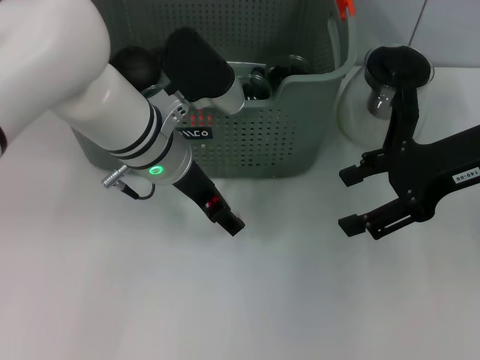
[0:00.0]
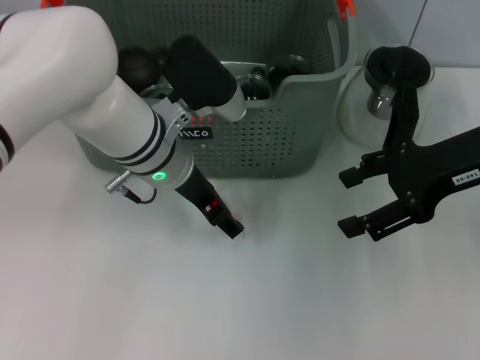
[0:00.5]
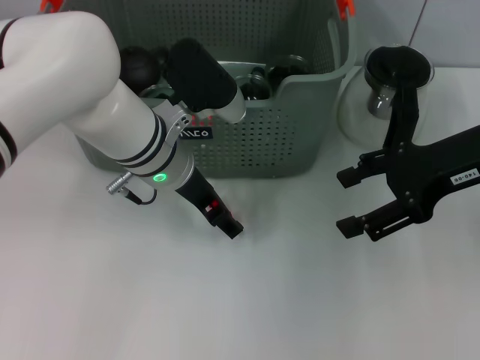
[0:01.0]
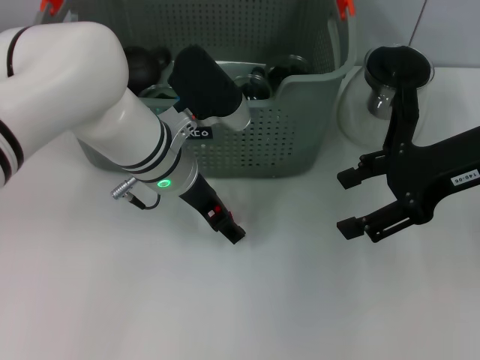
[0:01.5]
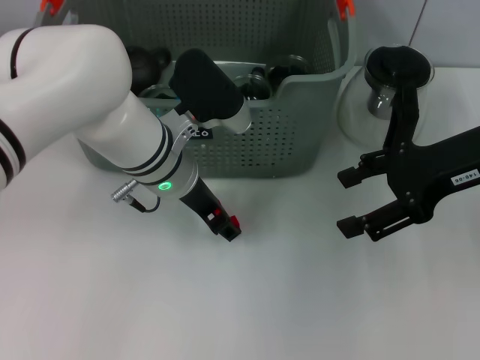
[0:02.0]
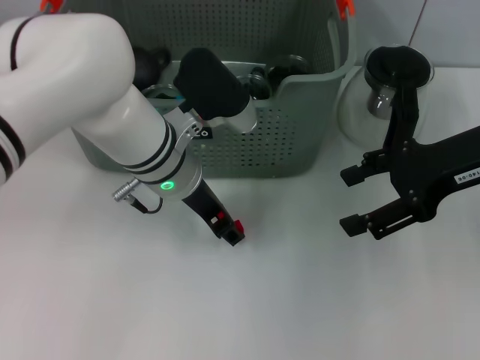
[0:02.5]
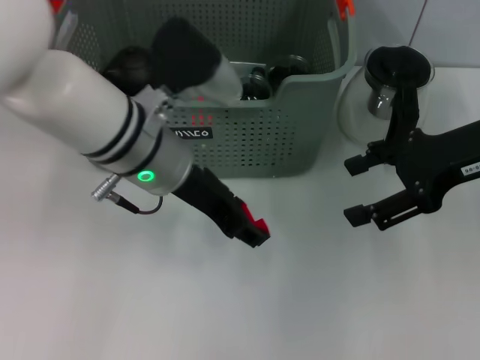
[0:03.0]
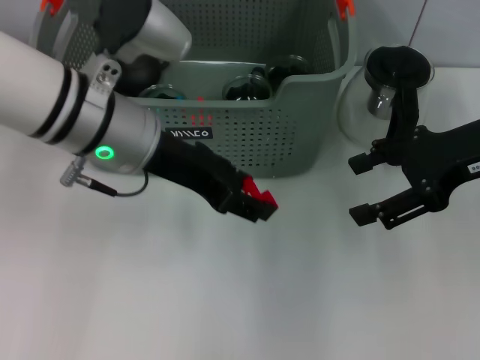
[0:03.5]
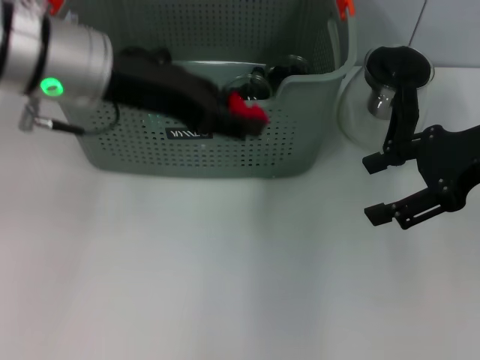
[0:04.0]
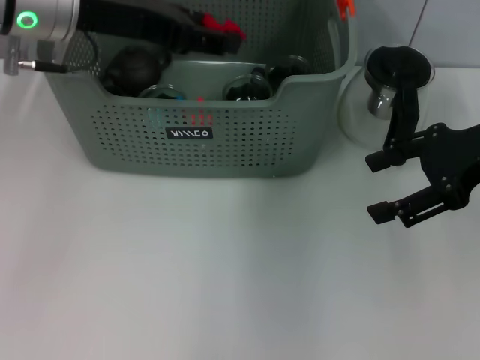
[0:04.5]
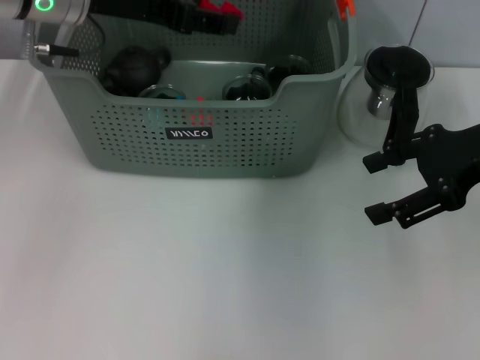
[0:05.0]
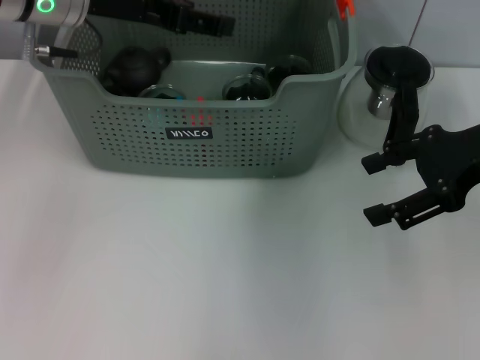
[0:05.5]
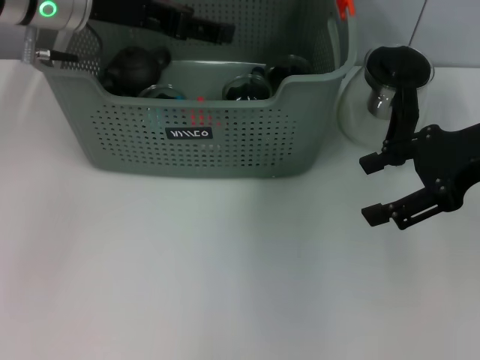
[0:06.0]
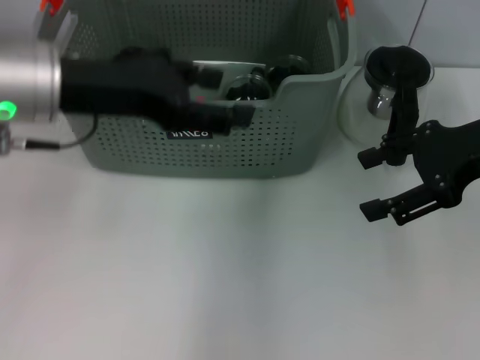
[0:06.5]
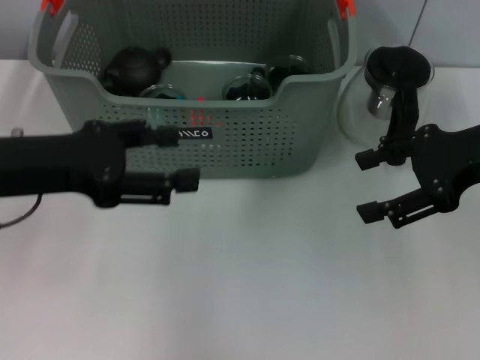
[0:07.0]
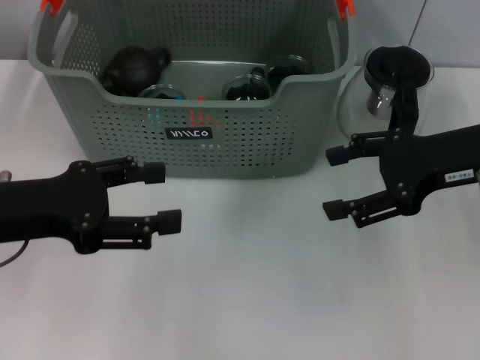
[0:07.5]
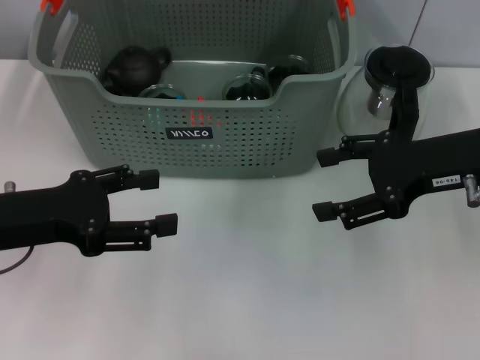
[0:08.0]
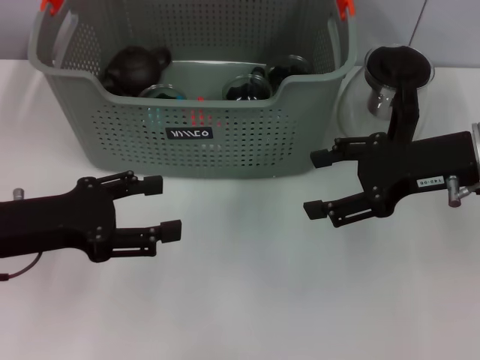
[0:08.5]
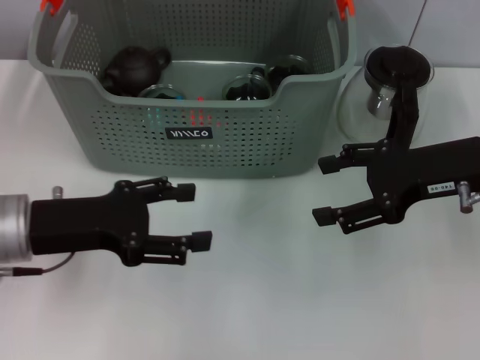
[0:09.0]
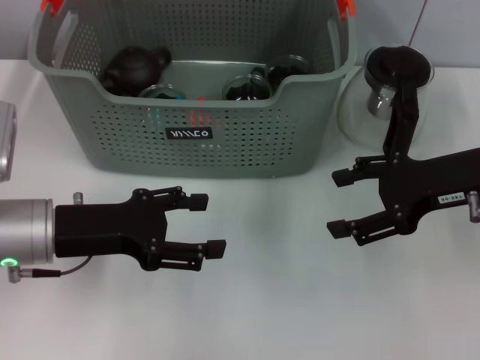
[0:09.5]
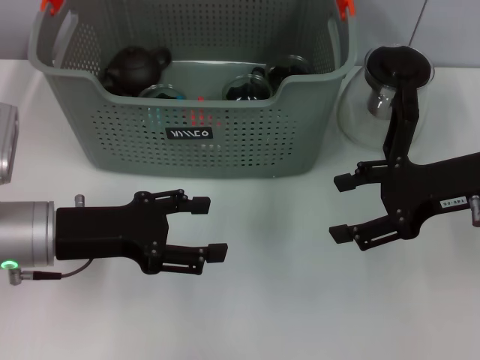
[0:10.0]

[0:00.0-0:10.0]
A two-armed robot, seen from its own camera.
Task of the whole recording: pick up the teacup on the table and place it into the storage bin, pick up the block on the table and place it into the storage bin.
Step, 0:00.0 to 0:02.0: Grasp the red block with left gripper.
Step, 0:02.5 to 0:05.5: Place the red block in the storage box with left gripper.
0:00.0 to 0:02.0: The grippers stay close to where they were, moving slightly.
0:02.0 to 0:04.0: The left gripper shifts approximately 15 cm upward and to the left.
0:04.0 to 0:06.0: The left gripper travels forward by about 5 cm.
0:06.0 to 0:08.0: The left gripper shifts about 20 cm backward, downward and to the left.
0:08.0 to 0:10.0: The left gripper changes place by about 5 cm.

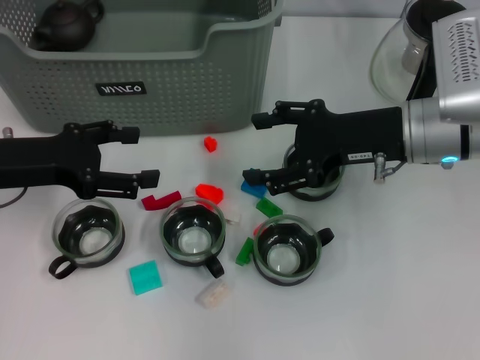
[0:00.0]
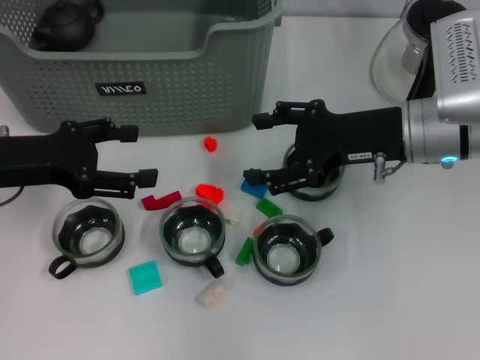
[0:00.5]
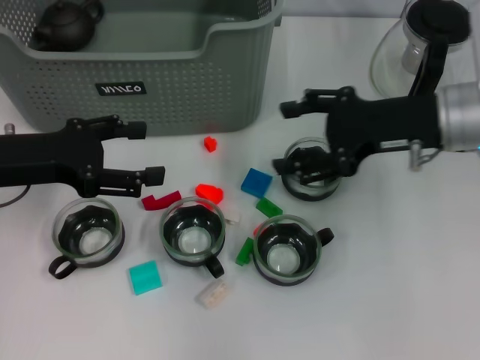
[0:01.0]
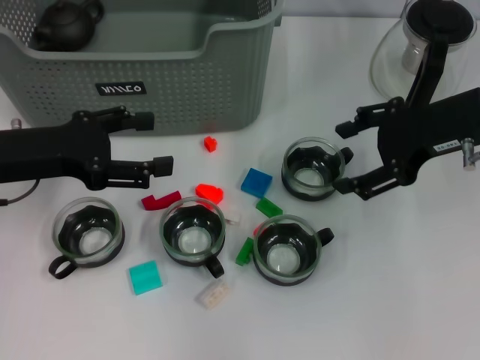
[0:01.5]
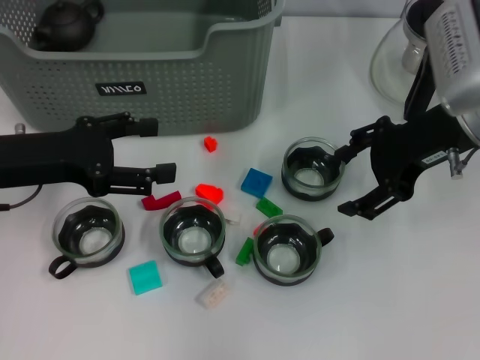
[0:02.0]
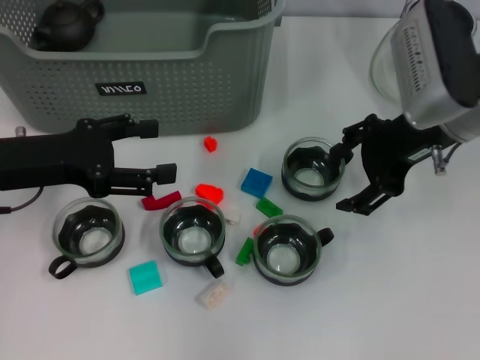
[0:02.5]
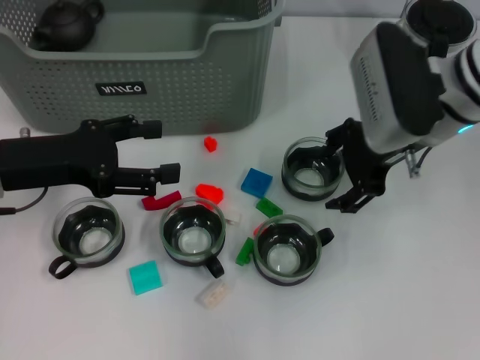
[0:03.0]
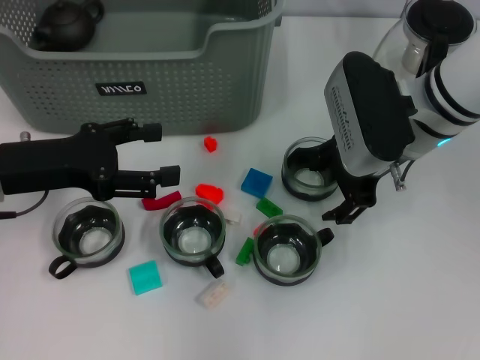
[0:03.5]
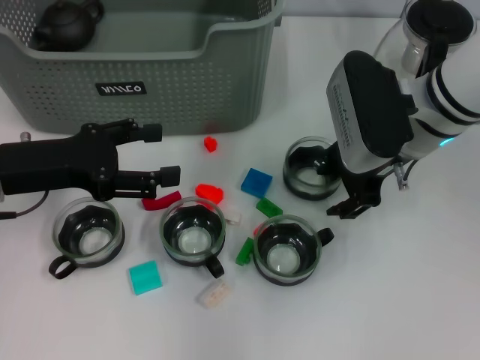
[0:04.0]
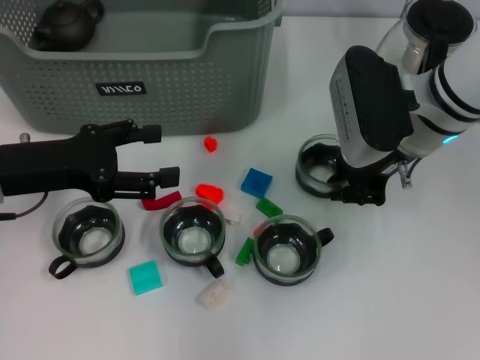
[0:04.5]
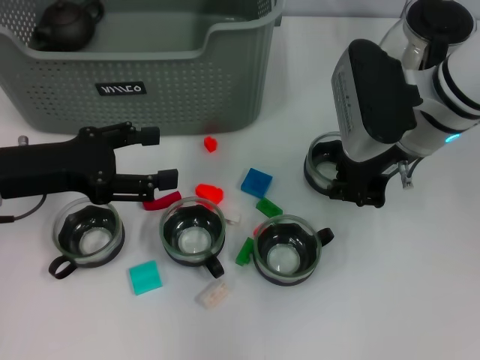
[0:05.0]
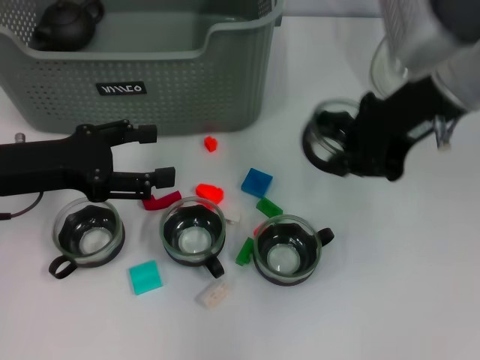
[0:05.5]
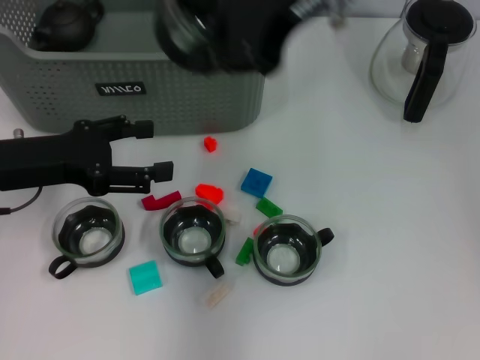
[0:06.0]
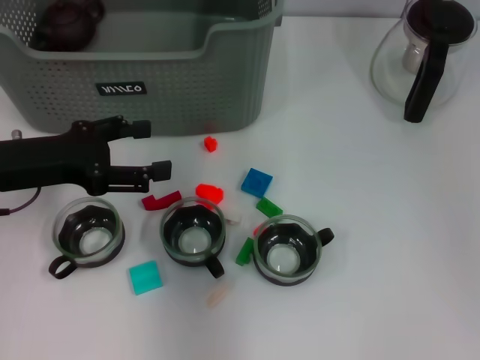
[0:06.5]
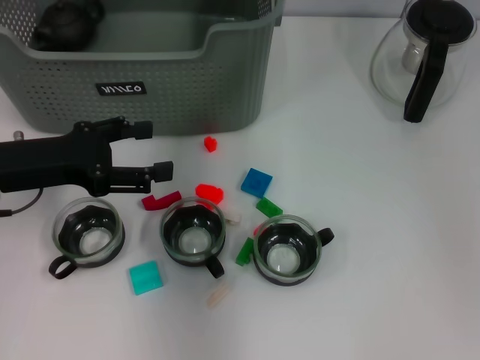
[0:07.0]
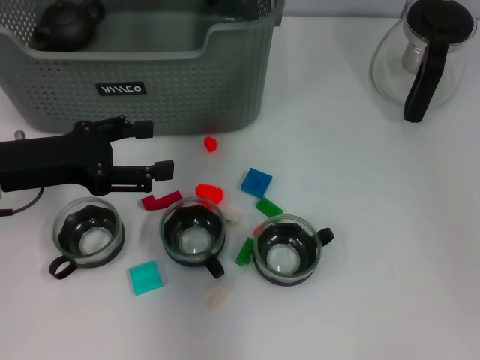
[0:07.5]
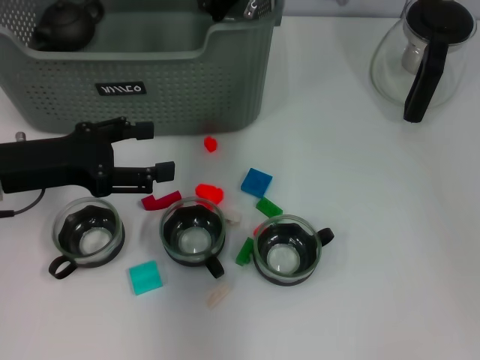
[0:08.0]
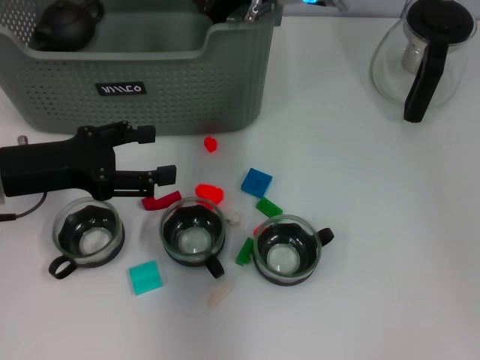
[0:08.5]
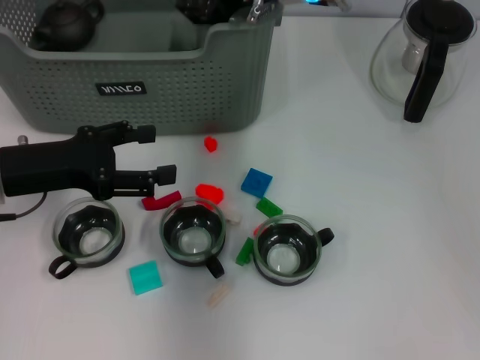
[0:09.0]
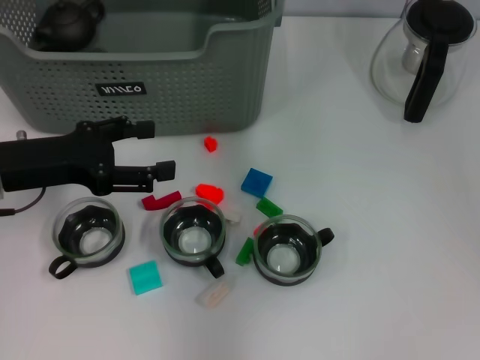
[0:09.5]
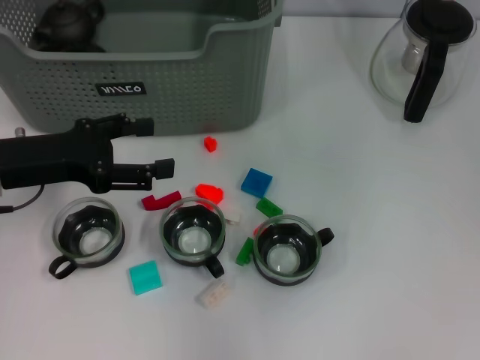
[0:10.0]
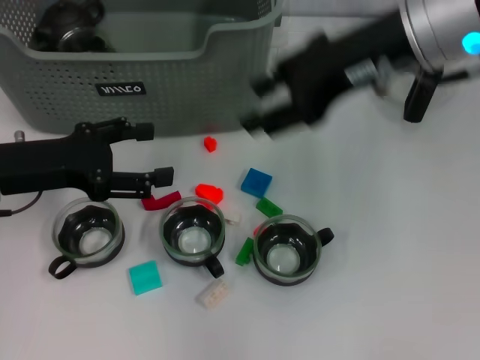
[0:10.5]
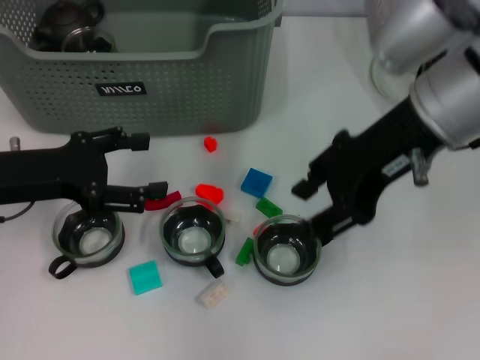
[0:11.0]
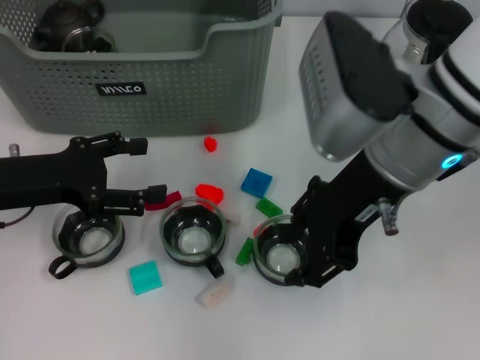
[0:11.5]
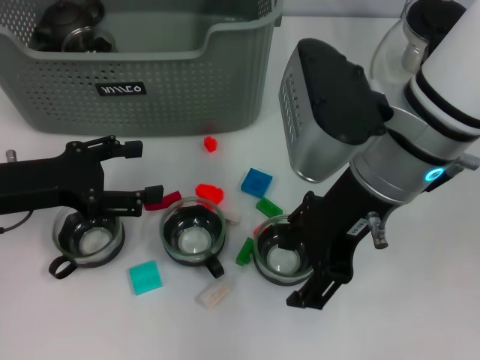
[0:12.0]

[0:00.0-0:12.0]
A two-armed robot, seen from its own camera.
Task of the whole recording: pick up the teacup on the table and place it into the storage bin, pick up the block on the table and place it into the storage bin.
Step, 0:00.0 to 0:04.5: Grasp the cup with right gripper.
Step, 0:05.0 to 0:09.5: Place the cup in the storage box with right gripper.
0:00.0 to 0:02.0: The right gripper is displaced upward by about 5 cm.
0:02.0 to 0:04.0: The right gripper shifts about 5 cm to the left.
0:04.0 to 0:06.0: The right gripper heads upward, covering roughly 20 cm, and closes up.
0:06.0 to 0:08.0: The right gripper heads downward and forward, covering some 15 cm.
0:08.0 to 0:10.0: The right gripper heads upward, covering approximately 10 cm, and opens.
0:10.0 to 0:12.0: The right gripper heads backward and downward, covering some 15 cm.

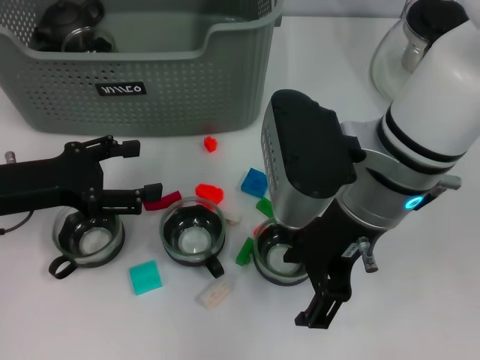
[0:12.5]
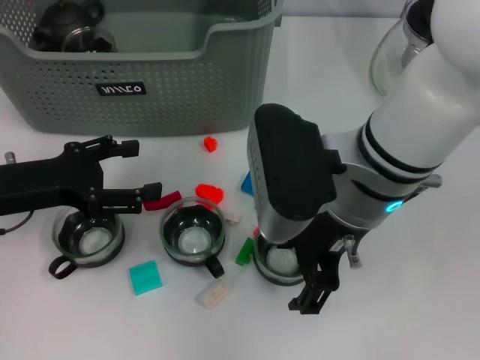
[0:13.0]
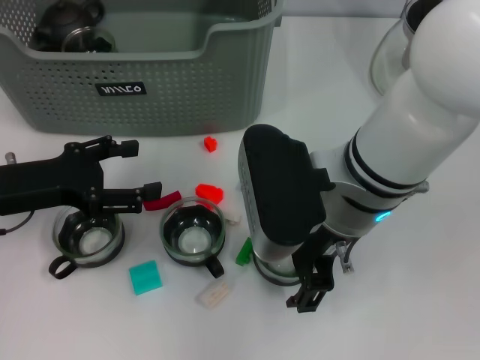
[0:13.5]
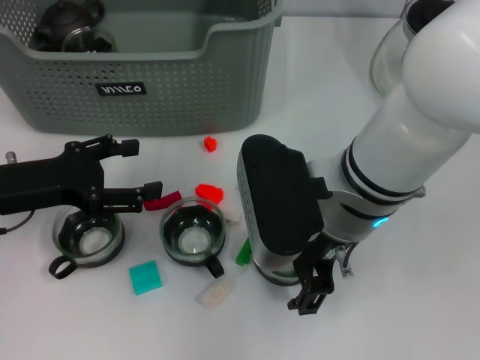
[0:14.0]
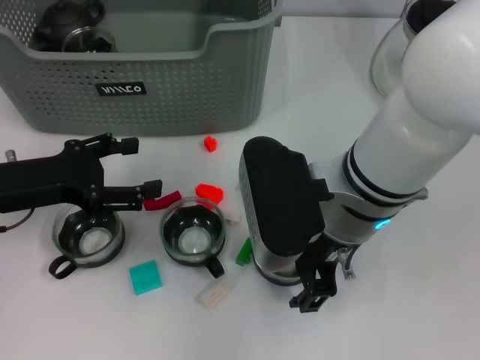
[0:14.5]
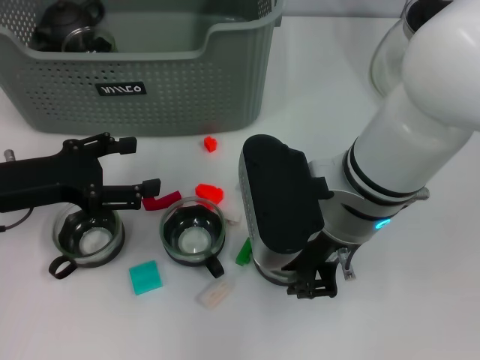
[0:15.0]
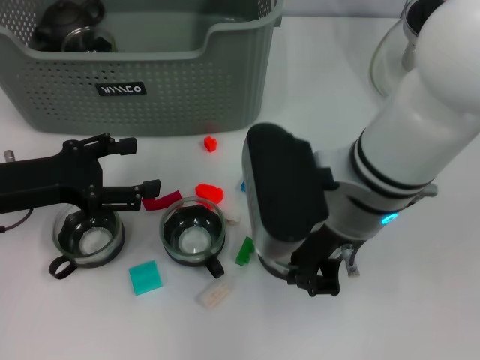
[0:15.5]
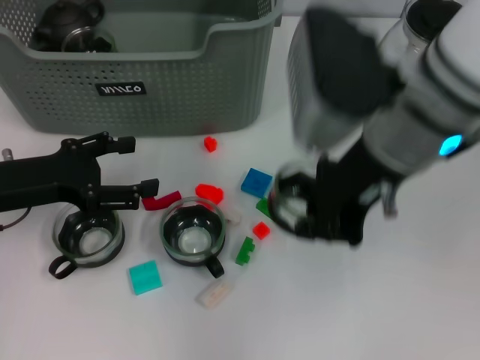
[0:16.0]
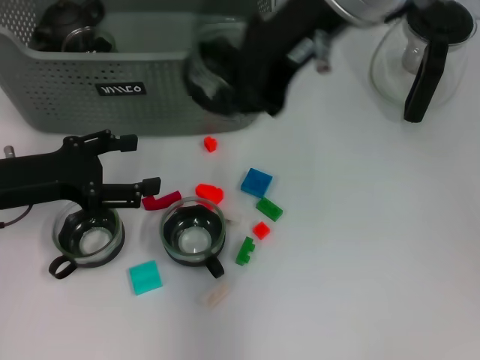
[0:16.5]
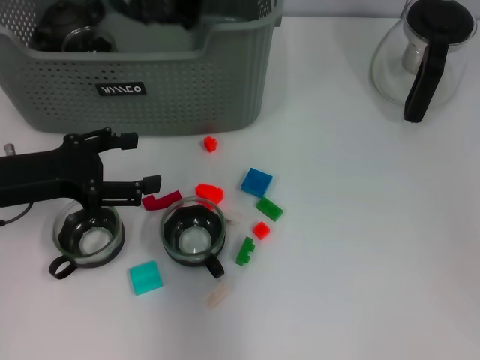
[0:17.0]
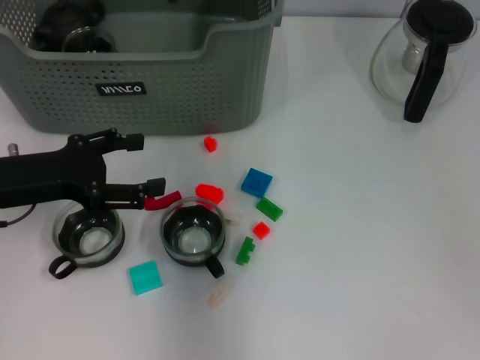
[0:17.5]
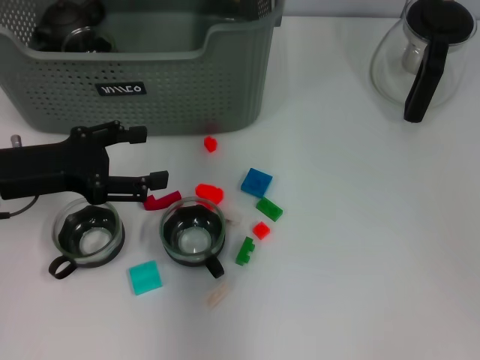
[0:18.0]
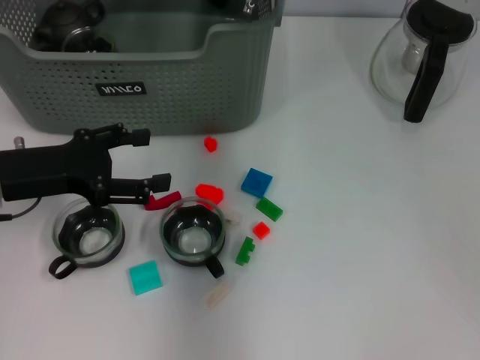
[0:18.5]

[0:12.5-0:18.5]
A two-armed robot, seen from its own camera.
Task of the whole recording: pick up the teacup on the table and place it into the storage bin, pick up the block on the table and place it into the storage bin.
Step, 0:12.5 to 0:15.0: Grasp the cup with right gripper.
0:12.5 to 0:14.5: There are only small adjustments of the grippers.
0:14.5 to 0:16.5: The right gripper goes approximately 15 cm upward and forward, and closes.
0:16.5 to 0:18.5: The right gripper shifts about 15 cm downward and forward.
